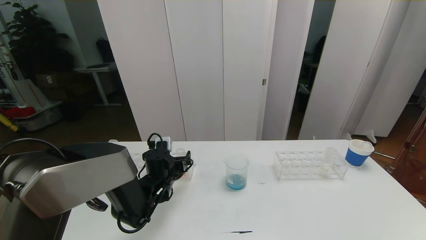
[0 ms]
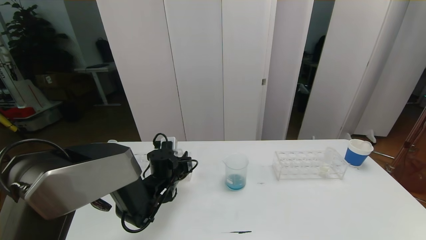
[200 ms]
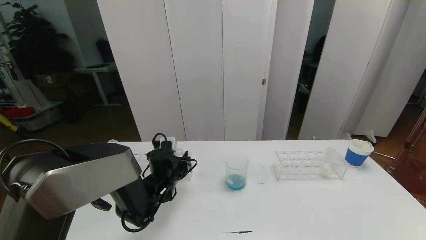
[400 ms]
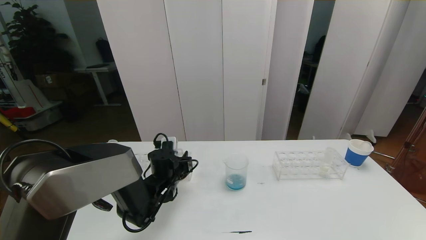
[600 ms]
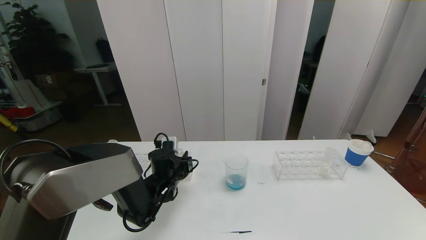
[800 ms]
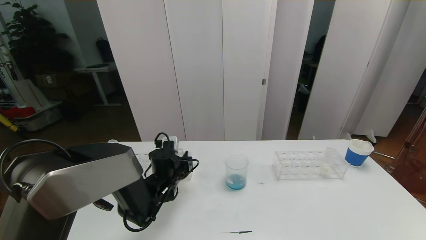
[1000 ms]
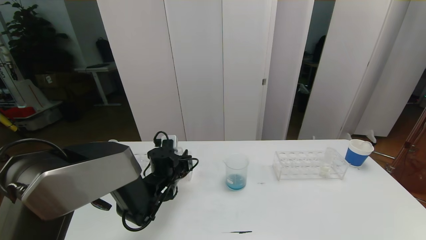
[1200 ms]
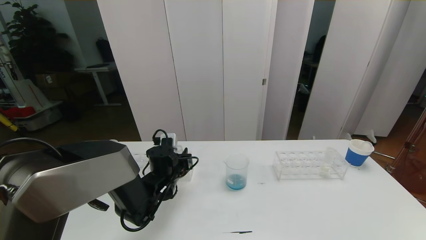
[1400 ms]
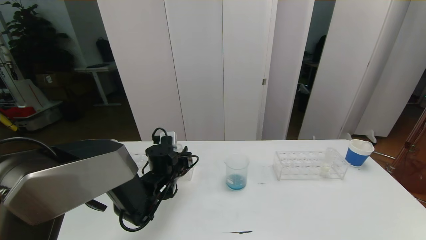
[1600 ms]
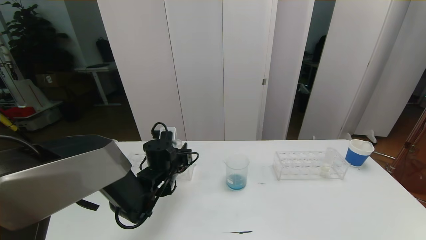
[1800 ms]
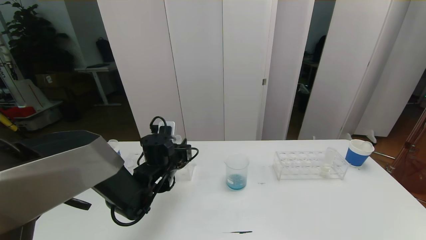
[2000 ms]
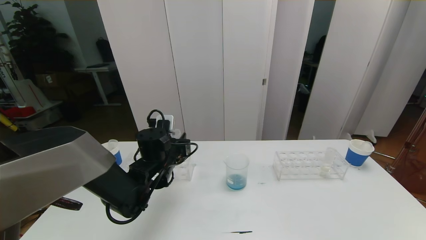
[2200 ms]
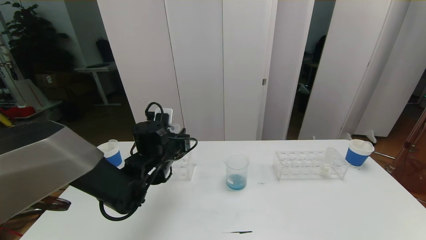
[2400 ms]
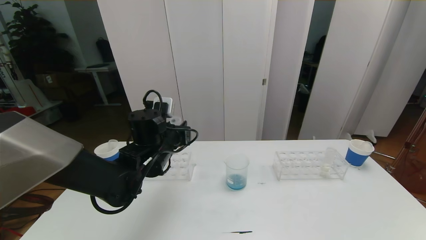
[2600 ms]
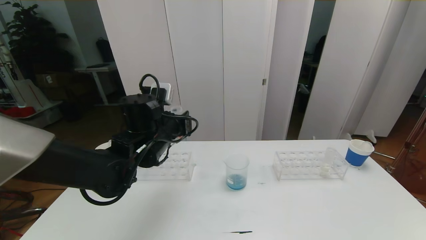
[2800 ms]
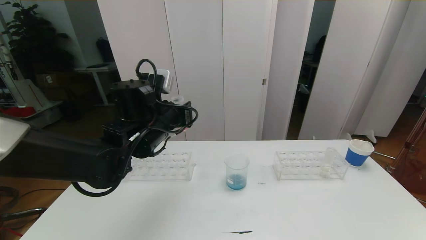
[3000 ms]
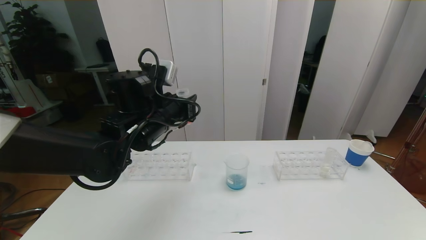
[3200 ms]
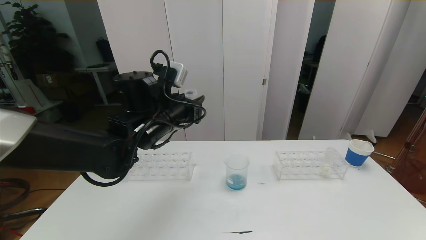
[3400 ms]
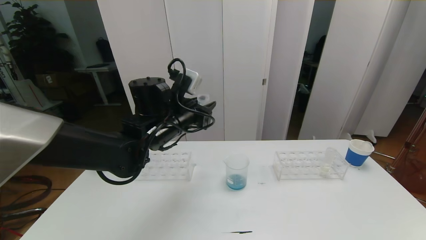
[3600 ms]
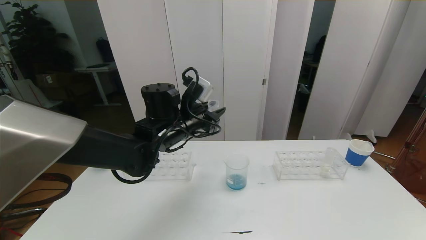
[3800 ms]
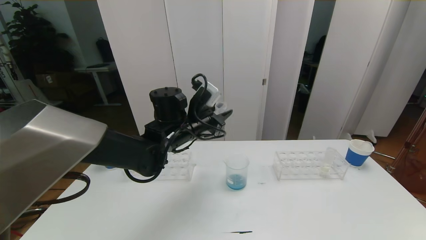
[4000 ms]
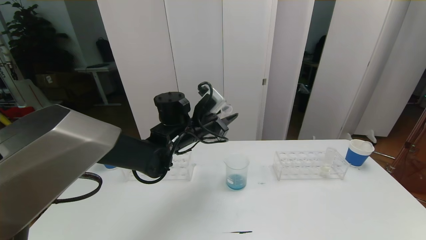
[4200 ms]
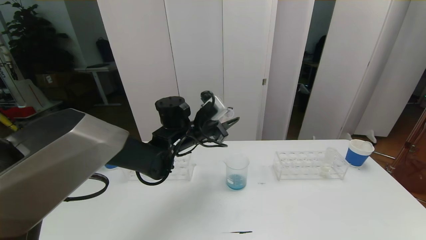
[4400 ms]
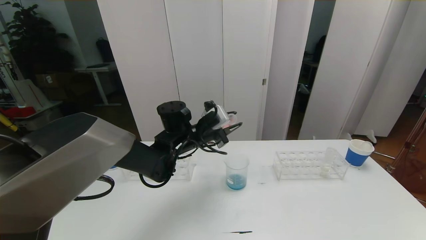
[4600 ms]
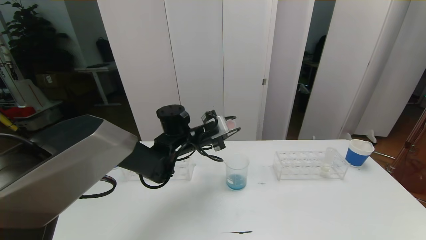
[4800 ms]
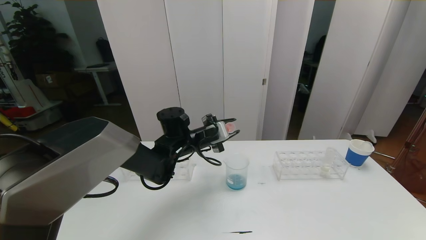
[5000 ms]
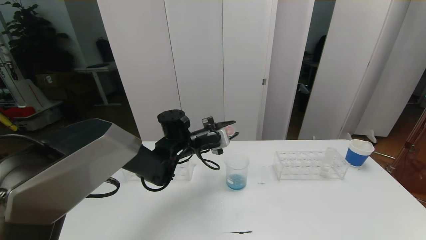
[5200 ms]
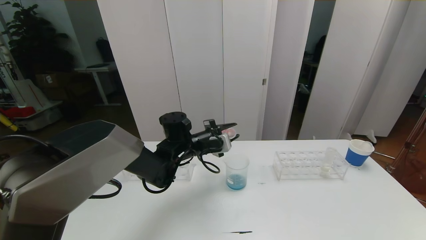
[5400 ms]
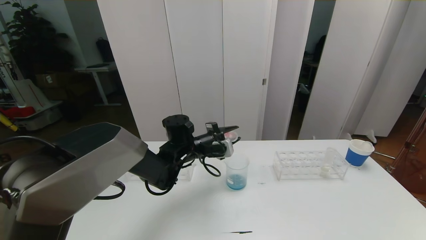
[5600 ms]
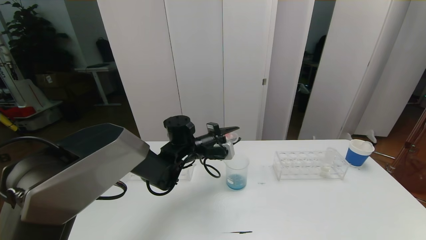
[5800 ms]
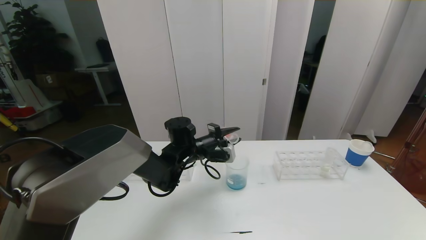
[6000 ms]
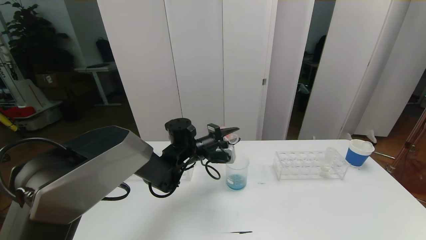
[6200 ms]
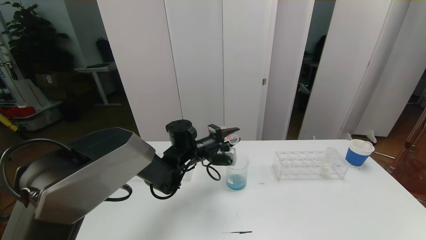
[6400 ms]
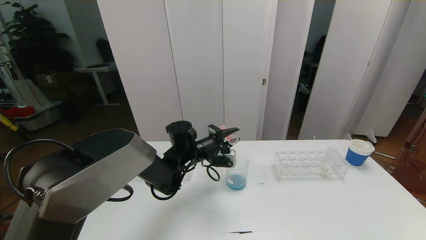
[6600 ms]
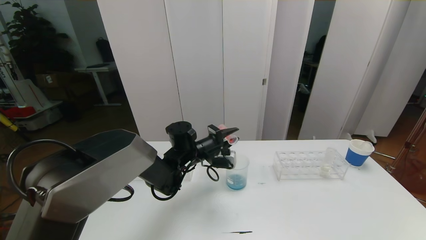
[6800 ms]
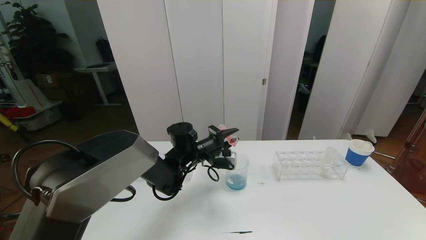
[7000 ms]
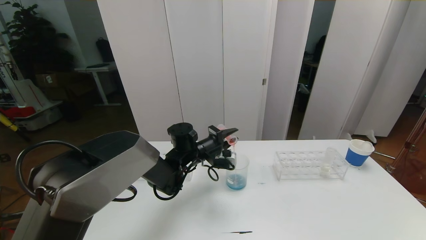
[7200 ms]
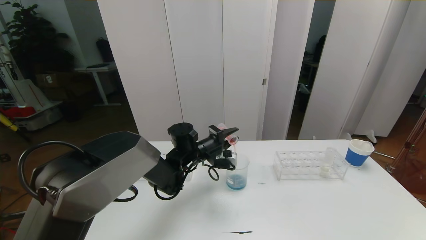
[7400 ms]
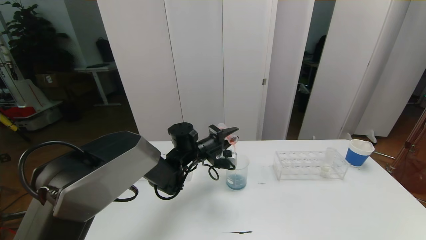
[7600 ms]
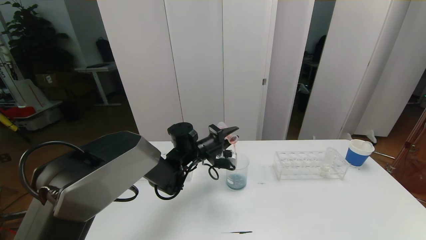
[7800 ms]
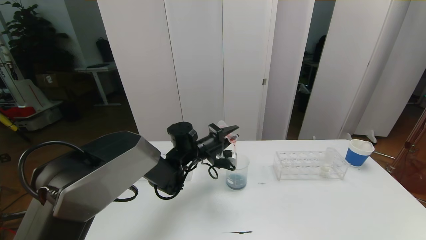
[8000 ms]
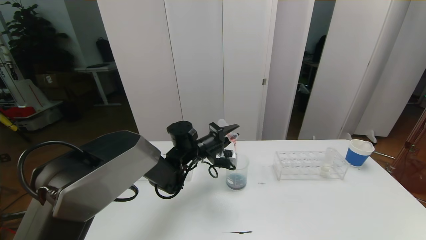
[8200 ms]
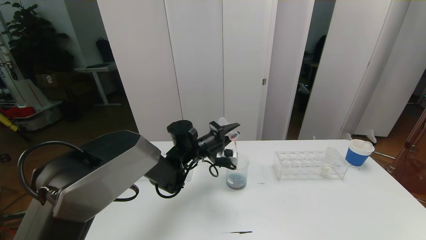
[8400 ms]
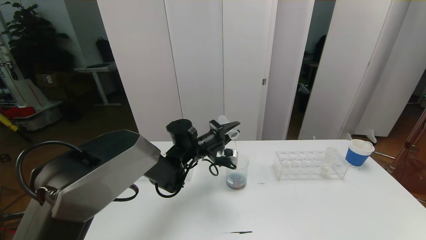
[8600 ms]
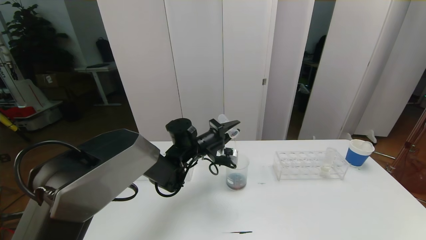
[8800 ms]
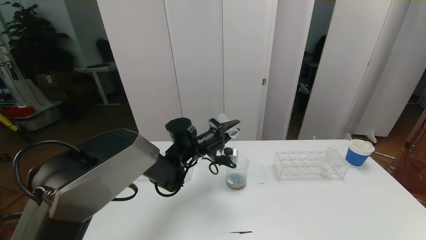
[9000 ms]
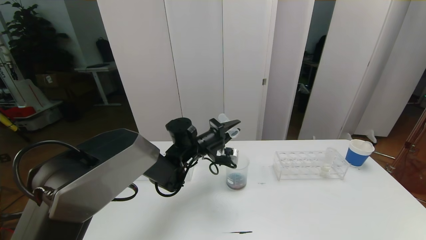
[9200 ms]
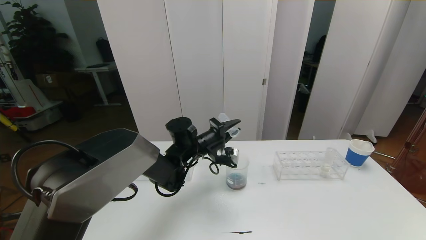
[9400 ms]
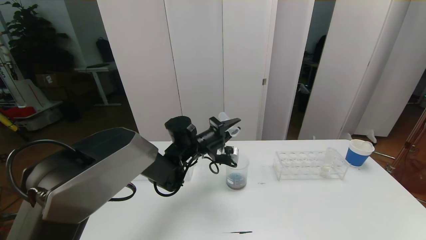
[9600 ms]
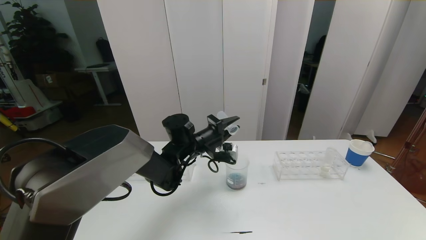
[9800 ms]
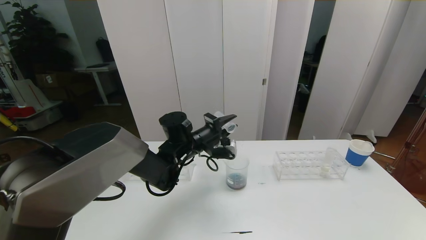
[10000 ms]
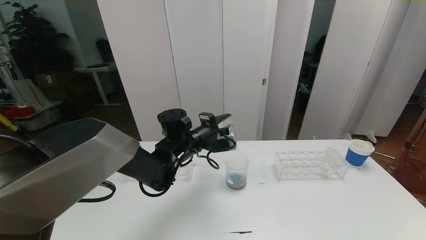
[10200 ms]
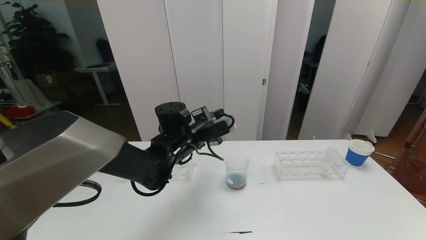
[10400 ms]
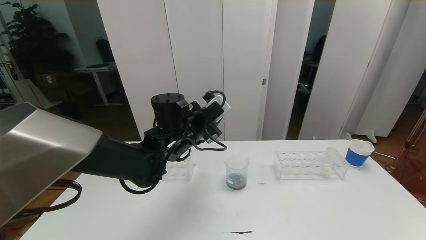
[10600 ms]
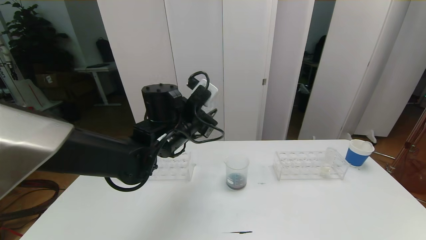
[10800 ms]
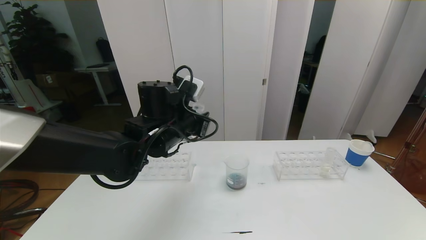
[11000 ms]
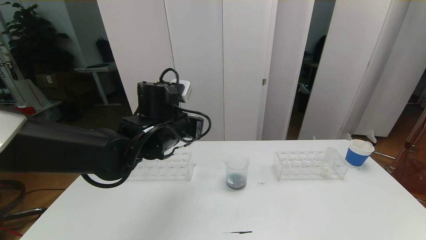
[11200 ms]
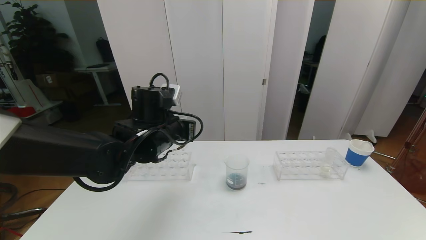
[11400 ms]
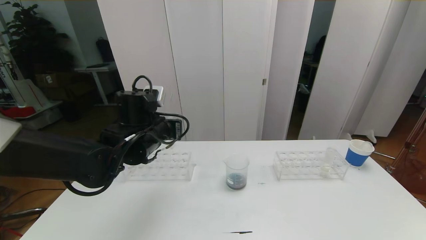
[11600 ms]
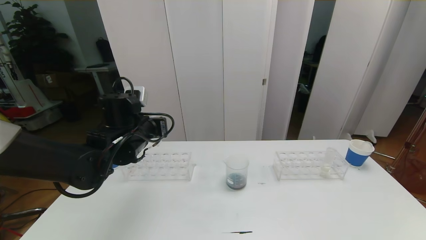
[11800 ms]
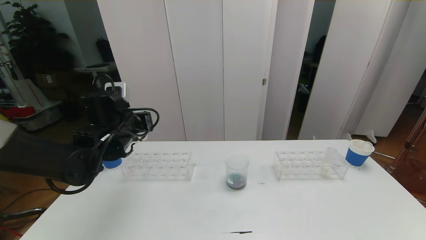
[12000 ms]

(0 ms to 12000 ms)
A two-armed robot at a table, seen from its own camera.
Task of the whole recording: pick up the test tube with red pigment the test tube with blue pigment and the test tube with white pigment by grippers and pour them into the beaker.
0 ms - 1600 ms: The left gripper closes up.
1600 ms - 3000 ms: The left gripper goes roughly 15 cm upward.
3000 ms - 4400 ms: The left gripper moves forward and to the right, some 10 cm.
4400 ms - 6000 ms: The left gripper goes roughly 5 cm downward.
6000 ms - 7600 ms: The grippers stay close to where they were, moving slightly.
7600 ms - 9000 ms: There are only small adjustments of the grippers.
9000 ms - 10400 ms: The left gripper heads upward, covering roughly 5 cm.
10400 ms - 12000 ms: The left gripper heads to the left, covering some 15 cm.

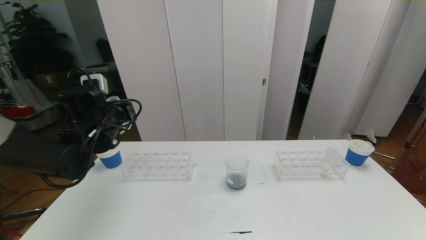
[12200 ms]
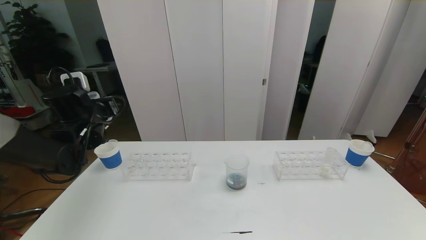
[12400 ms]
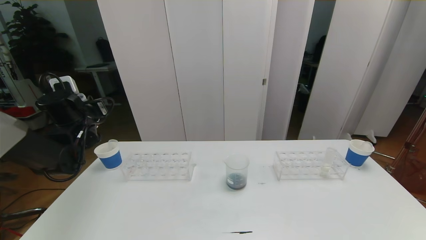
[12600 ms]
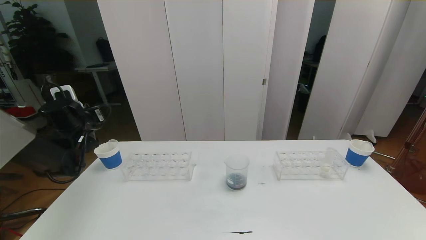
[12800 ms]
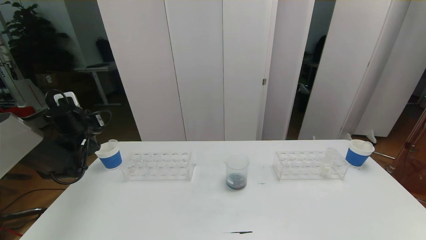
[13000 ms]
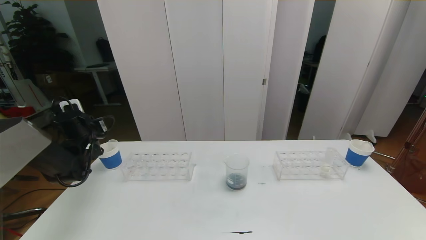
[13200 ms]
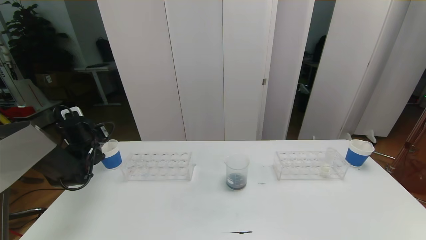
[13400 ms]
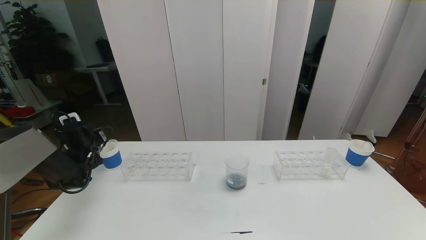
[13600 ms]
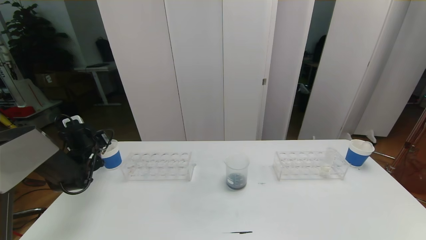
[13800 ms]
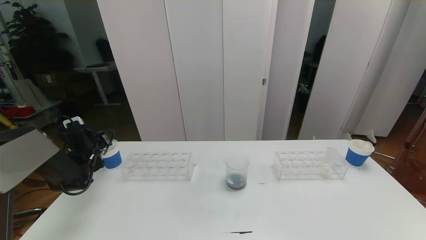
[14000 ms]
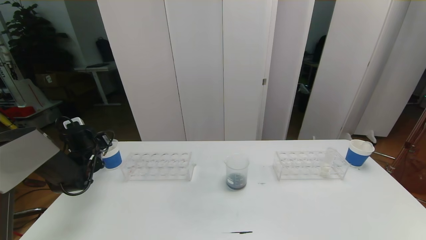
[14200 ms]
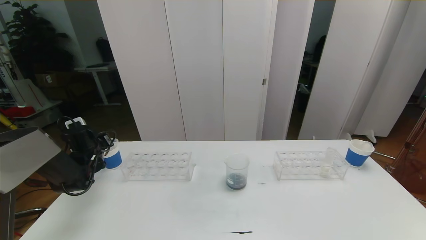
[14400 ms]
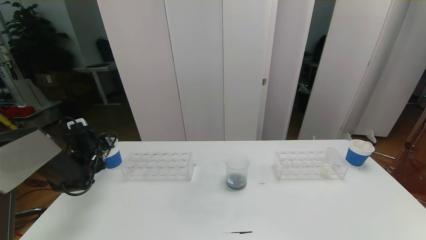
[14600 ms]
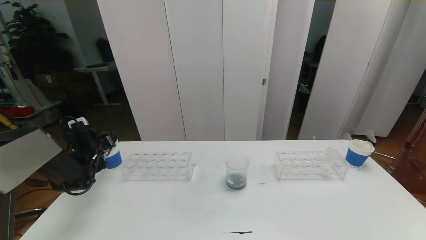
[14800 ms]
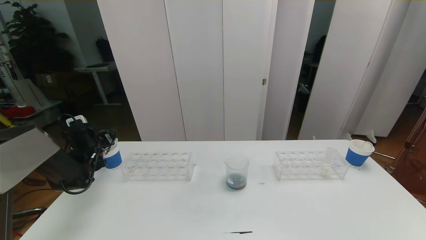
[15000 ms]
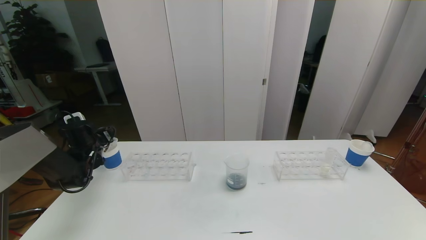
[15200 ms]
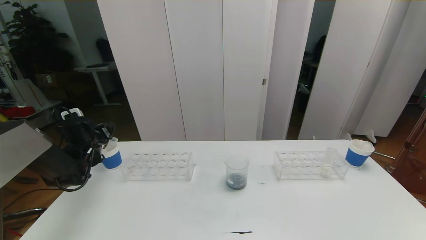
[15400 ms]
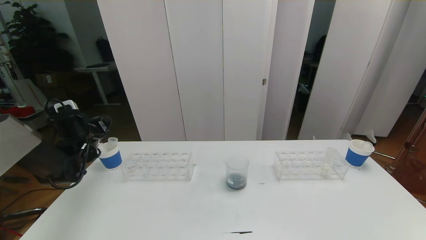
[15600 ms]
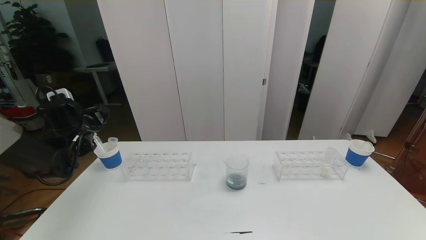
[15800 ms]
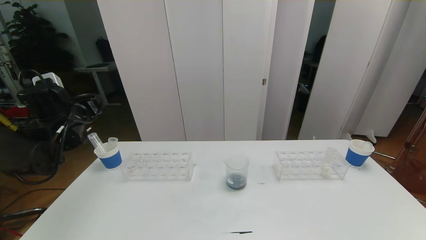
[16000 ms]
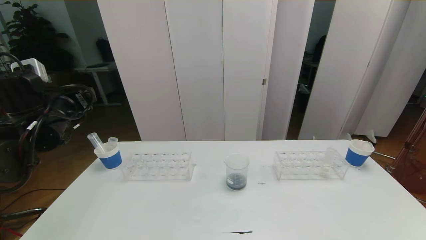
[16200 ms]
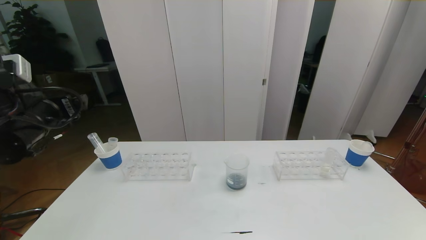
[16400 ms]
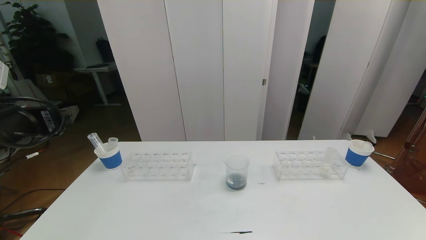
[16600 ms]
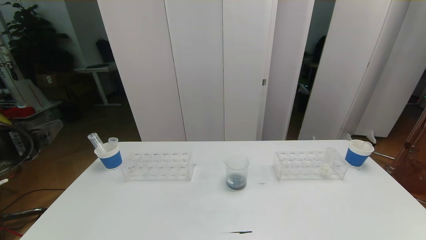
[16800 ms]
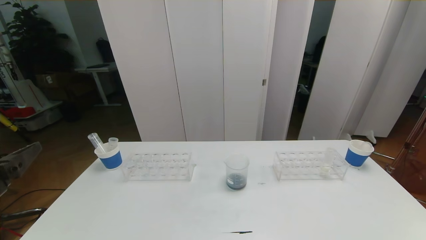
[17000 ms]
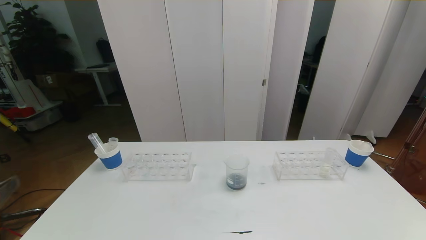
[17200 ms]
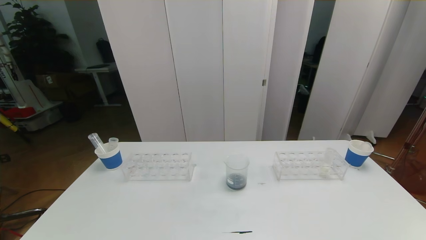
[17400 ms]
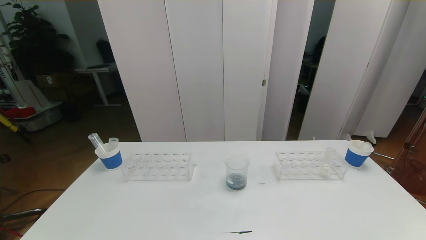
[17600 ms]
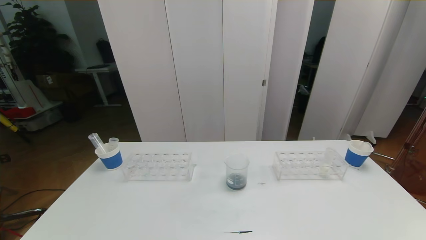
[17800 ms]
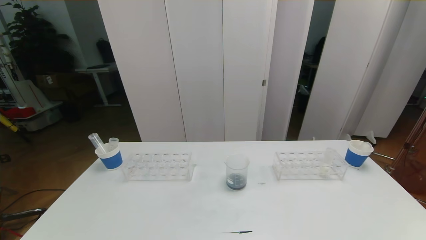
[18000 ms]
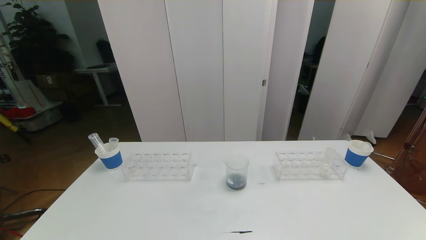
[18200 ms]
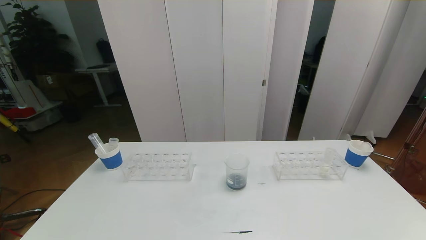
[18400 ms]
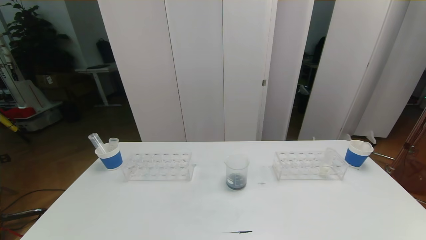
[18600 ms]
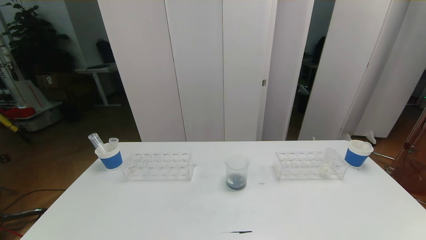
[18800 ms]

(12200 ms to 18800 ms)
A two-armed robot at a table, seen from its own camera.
Task of the whole recording: pick up the test tube with red pigment the test tube with blue pigment and the test tube with white pigment by grippers and pour them into the beaker.
12200 ms - 13800 ms: The left gripper is displaced downward, to the left and forward by approximately 20 cm.
13800 ms - 15400 ms: The left gripper opens.
15400 ms - 17200 ms: The left gripper travels backward by about 40 cm.
